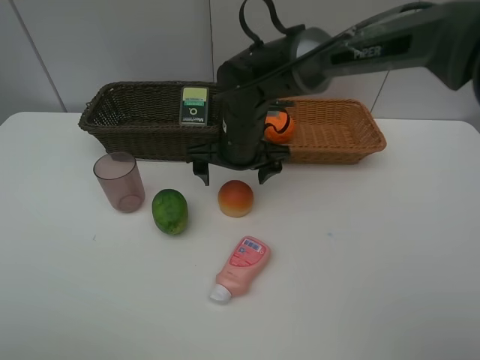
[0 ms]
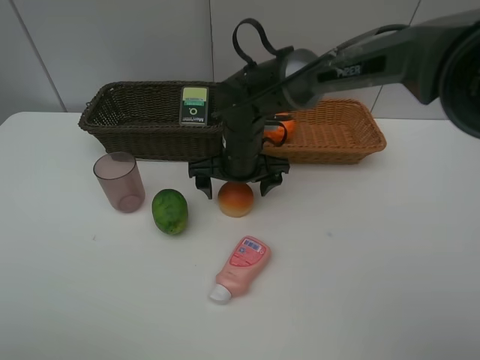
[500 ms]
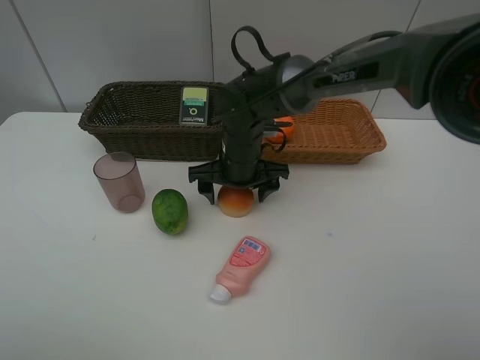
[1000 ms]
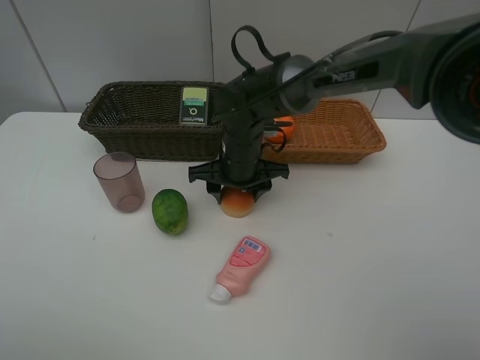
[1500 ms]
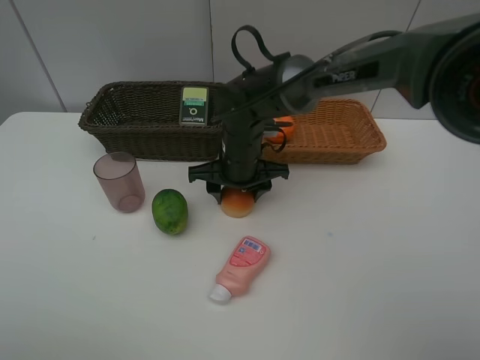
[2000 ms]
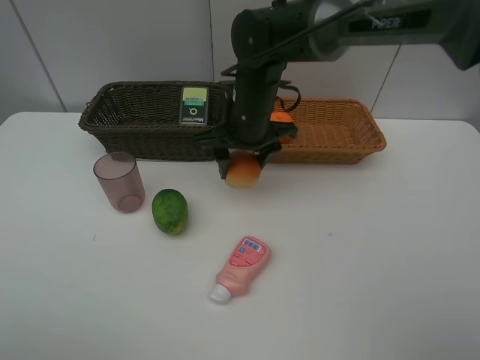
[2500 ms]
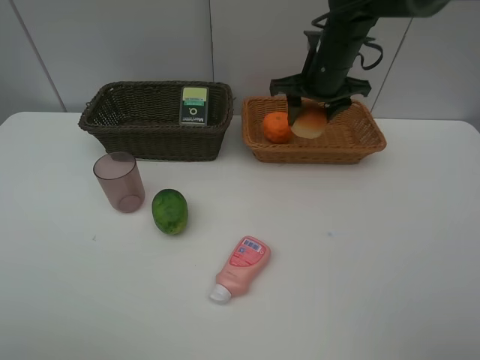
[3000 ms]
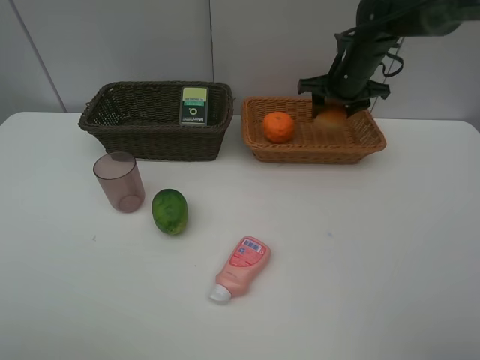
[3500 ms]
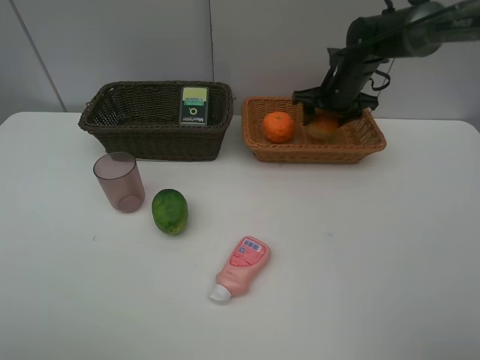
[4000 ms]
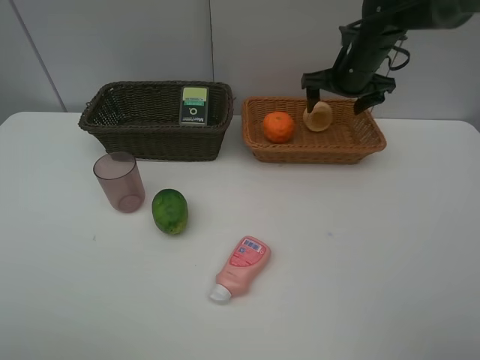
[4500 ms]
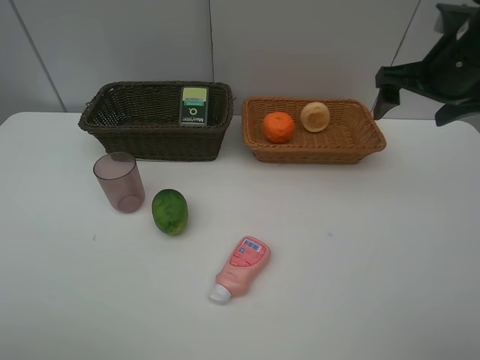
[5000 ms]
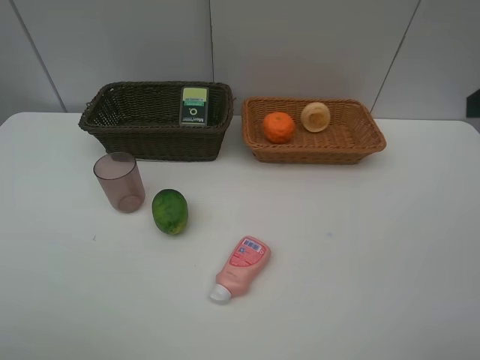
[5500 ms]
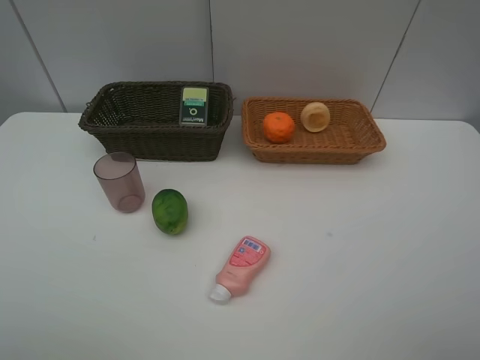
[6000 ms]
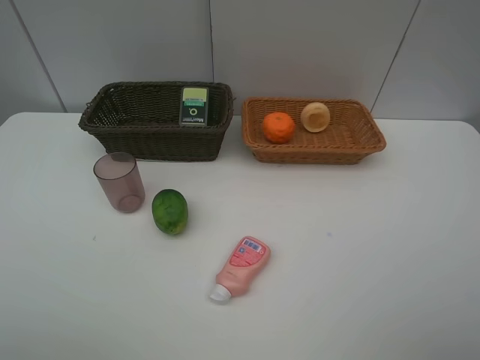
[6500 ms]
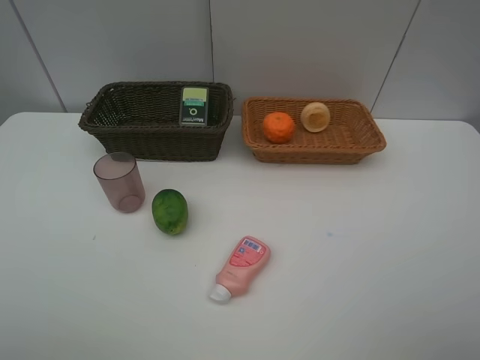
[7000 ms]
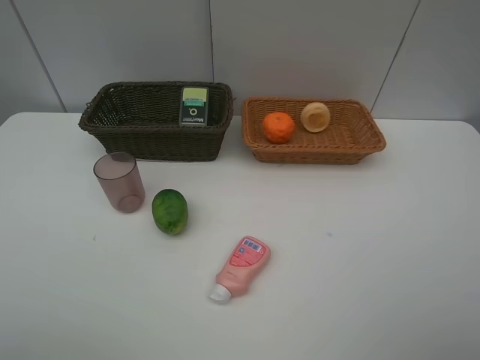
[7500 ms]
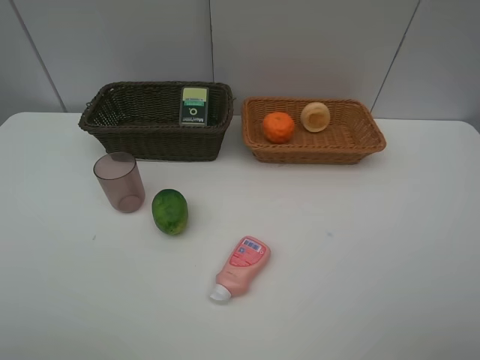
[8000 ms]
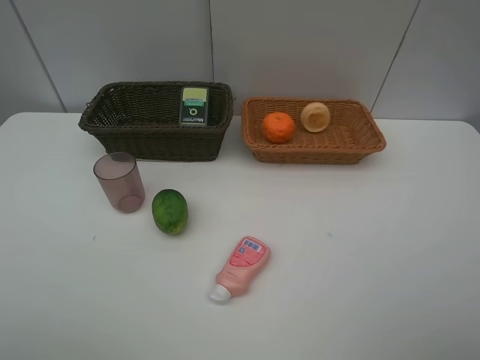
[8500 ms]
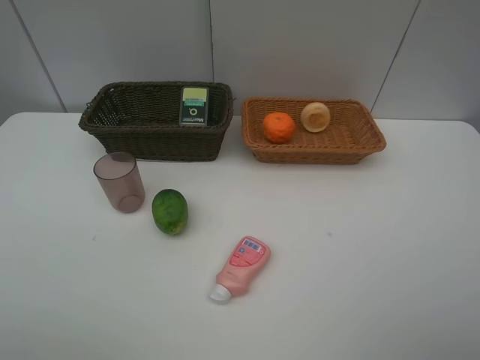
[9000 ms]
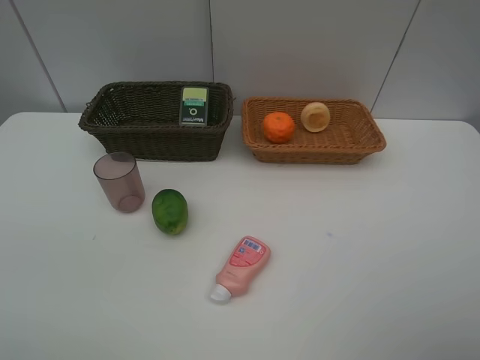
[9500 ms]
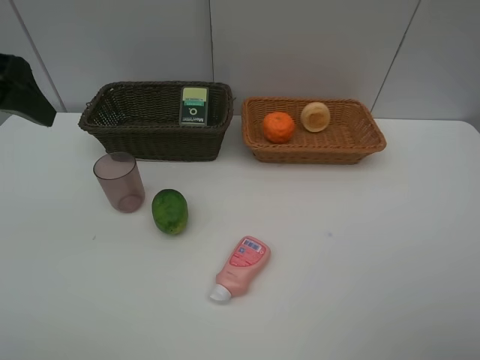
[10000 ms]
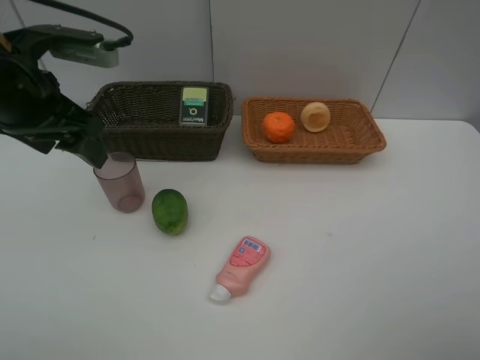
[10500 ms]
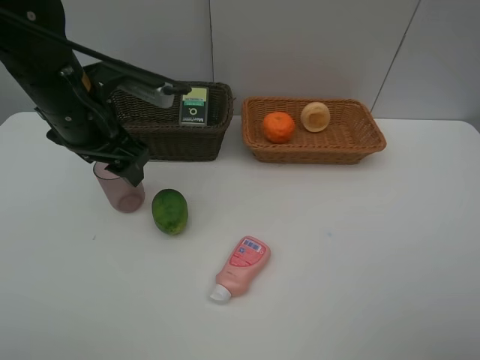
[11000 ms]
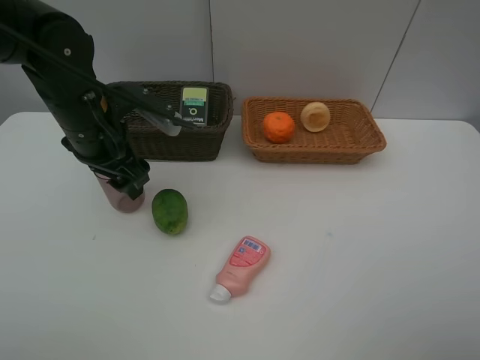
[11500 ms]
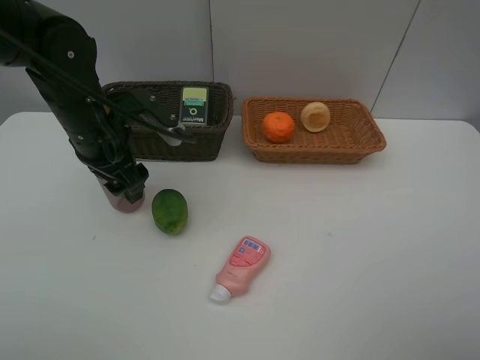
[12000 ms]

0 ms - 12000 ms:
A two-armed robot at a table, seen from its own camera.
Task of the whole recording: place multiple objects separately in different baskets.
0 ms - 2000 ms: The right gripper closes up.
2000 ms - 4000 ms: The right gripper goes approximately 25 cm to the right and forward, and opens its fingers.
4000 ms - 6000 ms: The right gripper goes some 50 cm backward, and opens up.
8000 ms - 10000 ms: The left gripper goes some 25 cm forward.
10000 ms - 12000 ms: The left gripper is displaced downward, to the right and forward by about 20 cm.

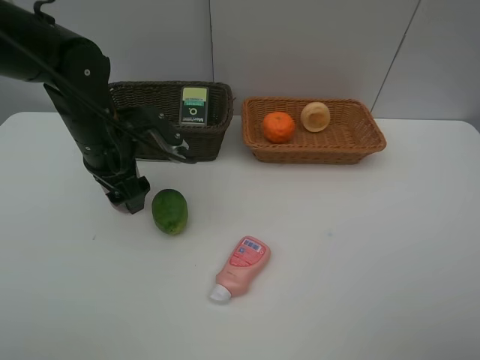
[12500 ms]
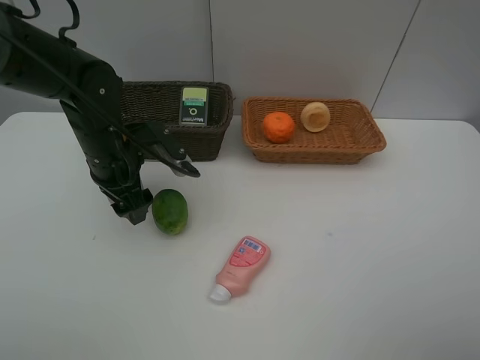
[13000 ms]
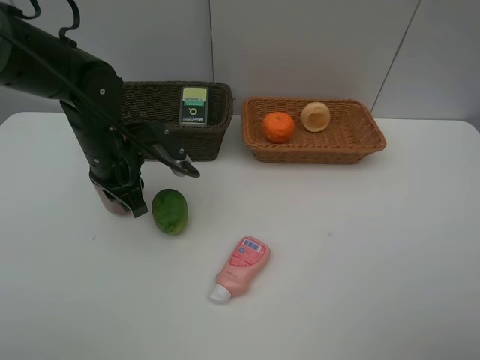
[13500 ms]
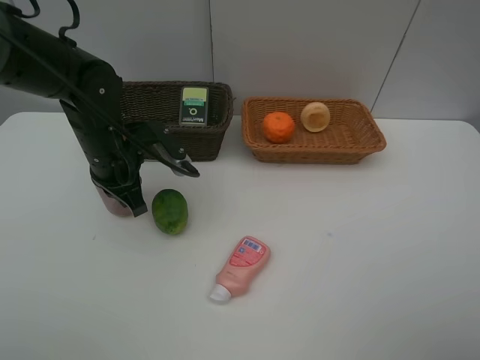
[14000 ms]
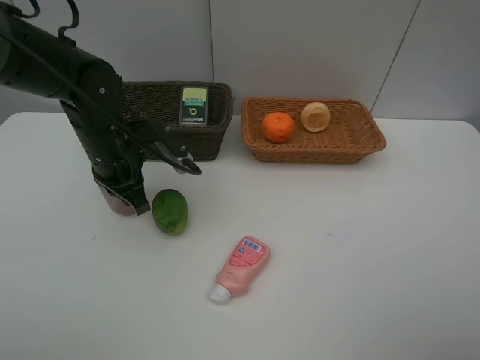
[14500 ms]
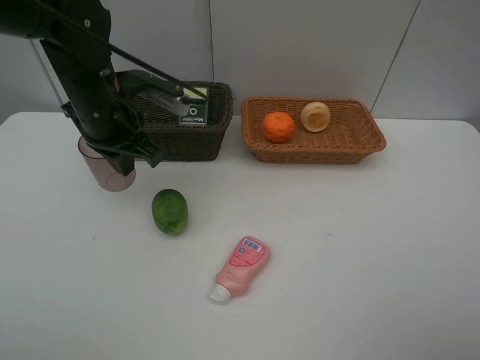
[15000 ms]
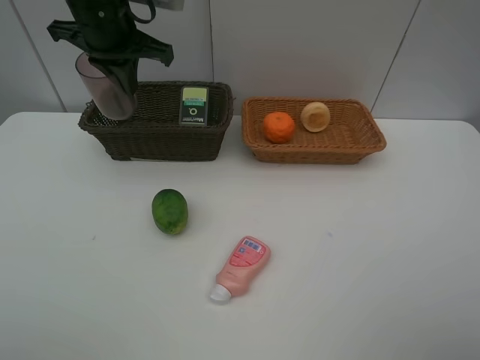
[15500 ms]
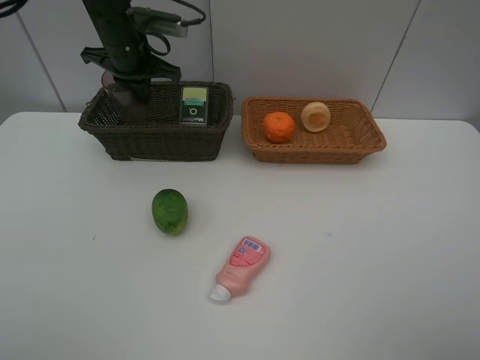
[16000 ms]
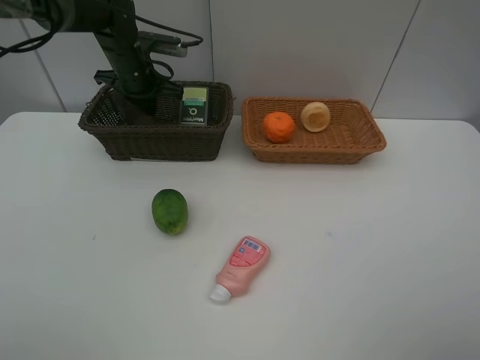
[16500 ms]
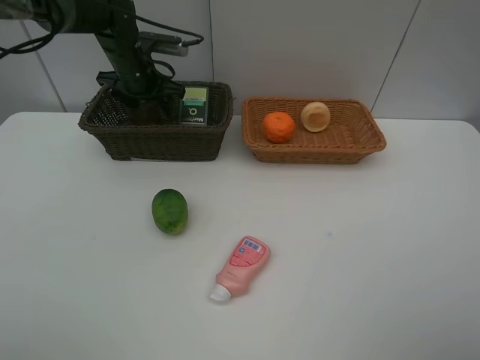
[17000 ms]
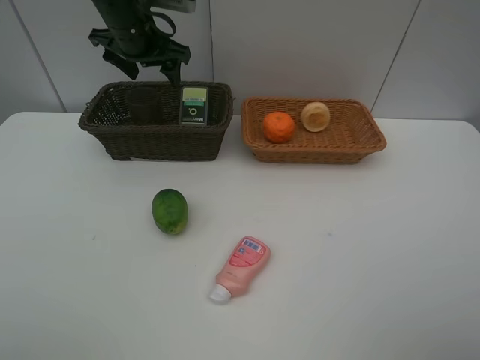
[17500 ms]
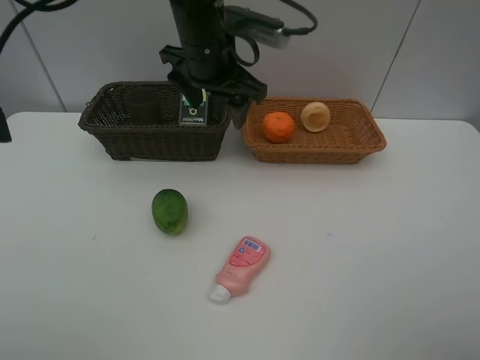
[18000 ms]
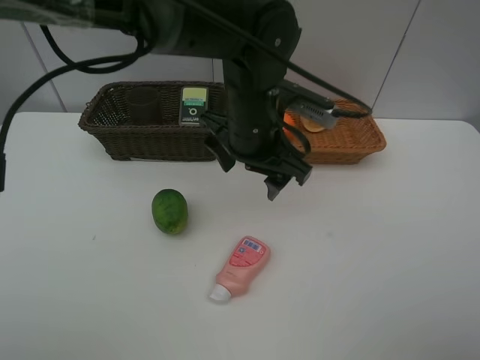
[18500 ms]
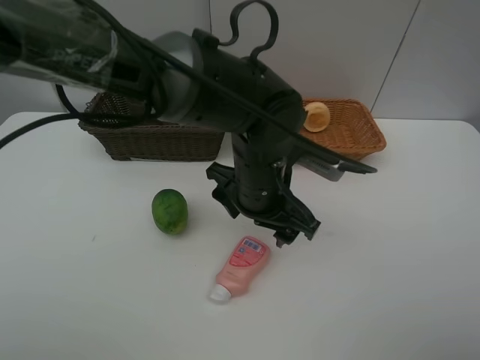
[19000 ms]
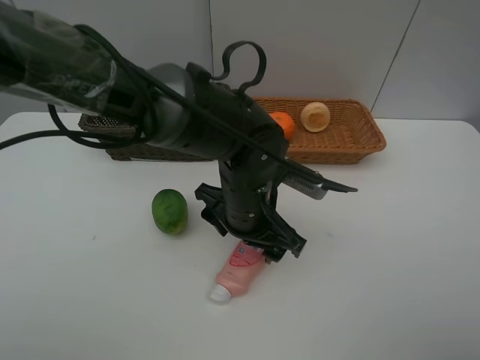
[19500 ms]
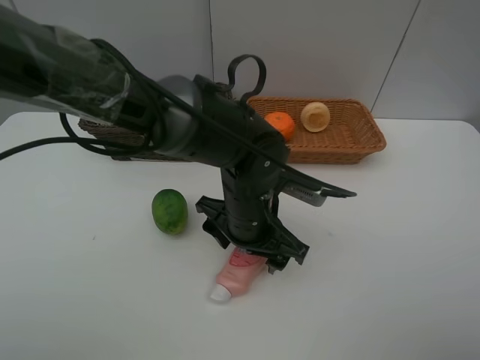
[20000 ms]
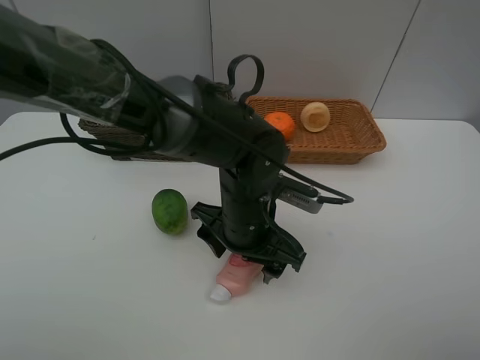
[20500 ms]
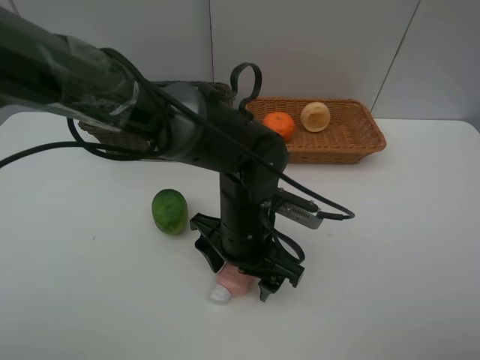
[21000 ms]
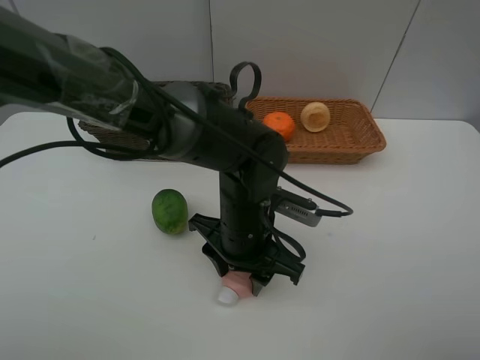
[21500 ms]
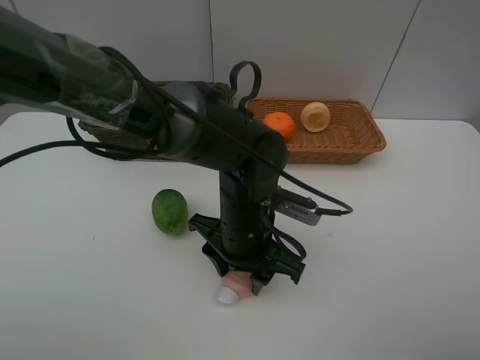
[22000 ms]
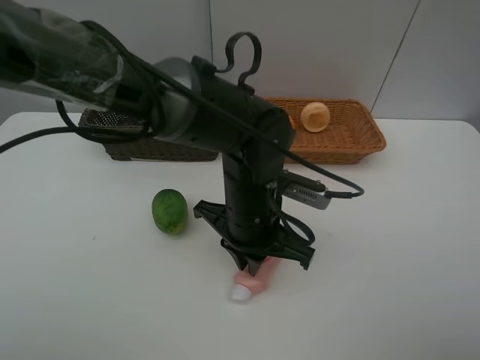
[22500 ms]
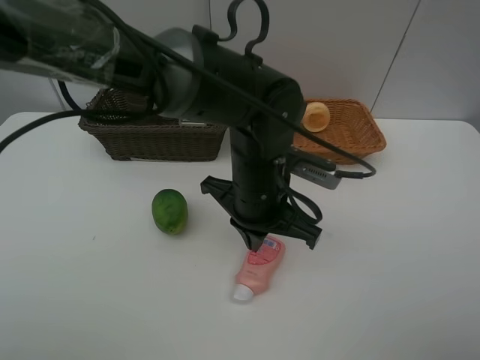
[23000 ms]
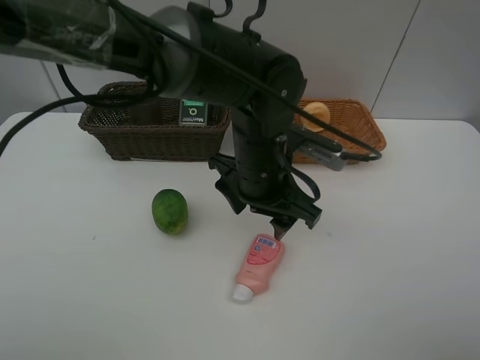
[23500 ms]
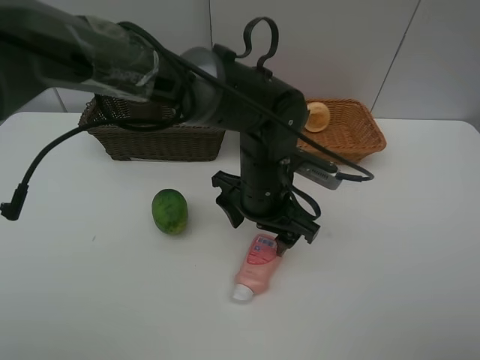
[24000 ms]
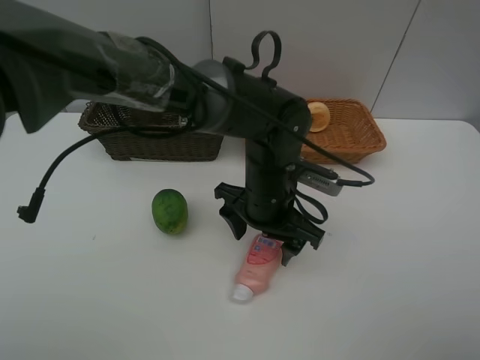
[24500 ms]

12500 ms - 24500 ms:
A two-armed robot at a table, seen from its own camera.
Task of the whole recording: place multiple objects separately in different baskets.
12500 ms - 14500 ms: The left gripper closes up.
14500 ms - 16500 ms: The left gripper travels forward by roughly 20 cm.
16500 ms - 18500 ms: The left gripper travels to the right and backward by about 30 cm, and opens.
18500 ms - 20500 ms: The left gripper shifts approximately 10 cm downward and backward.
20500 ms - 22500 ms: The left gripper closes its fingers.
22500 ms - 24500 ms: The left gripper opens.

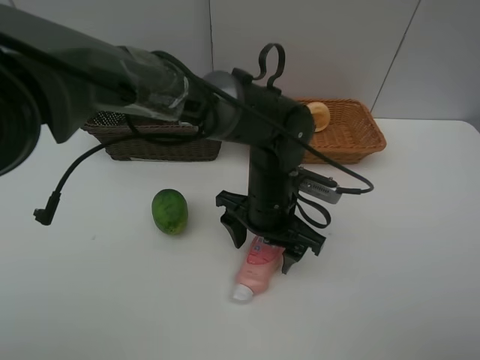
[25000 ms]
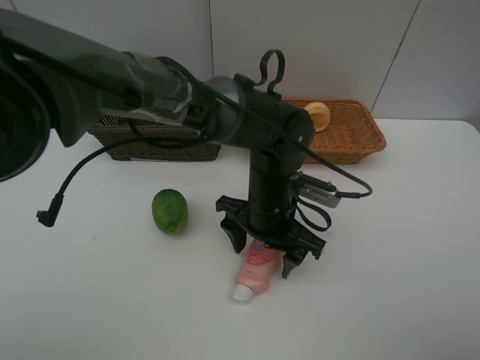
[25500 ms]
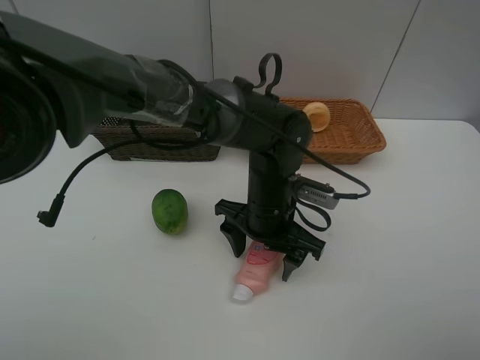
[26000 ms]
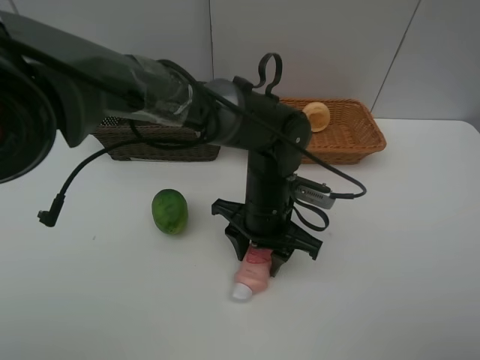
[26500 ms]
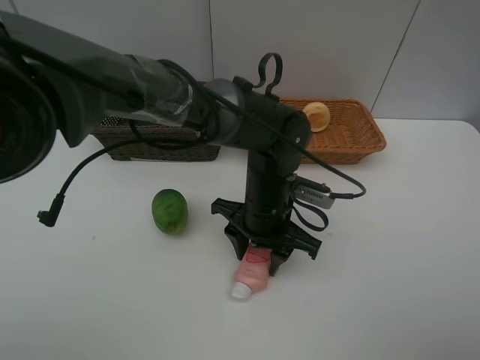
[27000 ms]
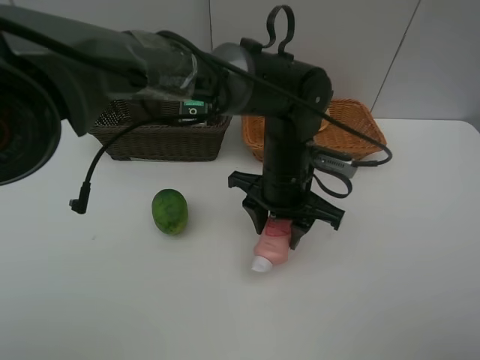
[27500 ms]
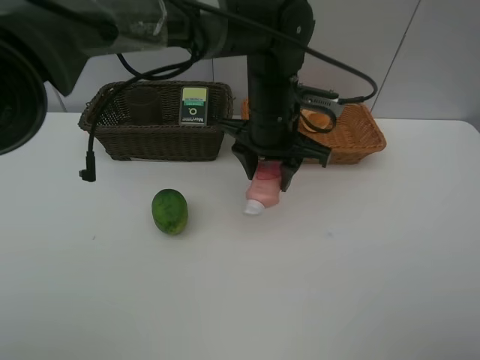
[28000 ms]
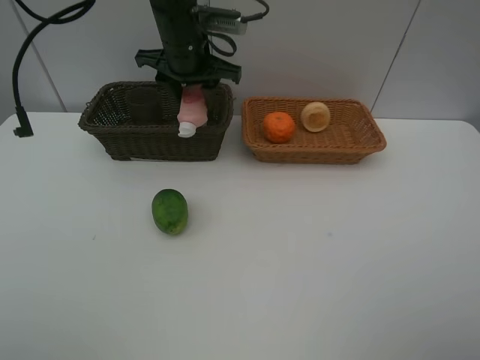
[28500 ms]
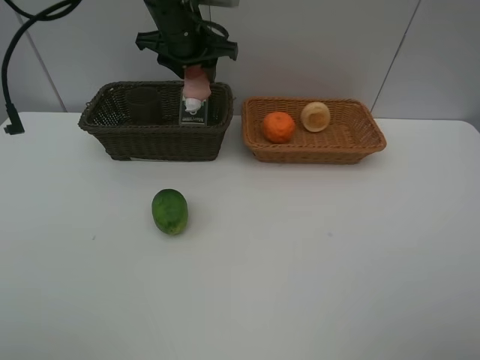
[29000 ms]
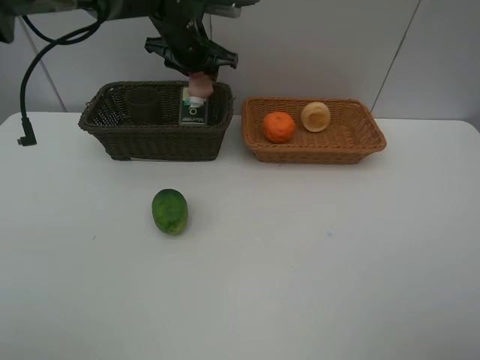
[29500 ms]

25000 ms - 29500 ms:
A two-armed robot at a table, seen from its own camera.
Task of the whole recording: place multiple objects separately in different baskets.
25000 ms - 27000 ms: Both grippers stay about where they are.
27000 ms - 29500 ms: The left gripper shifts some 30 cm forward, to the left and upward.
